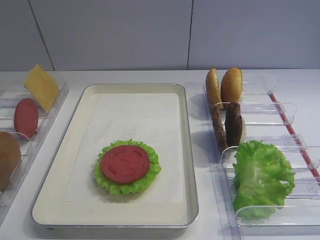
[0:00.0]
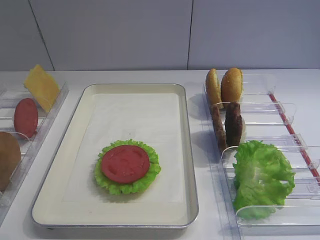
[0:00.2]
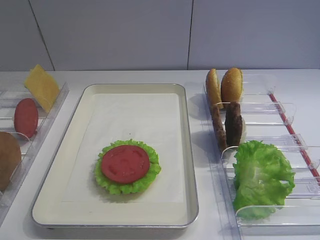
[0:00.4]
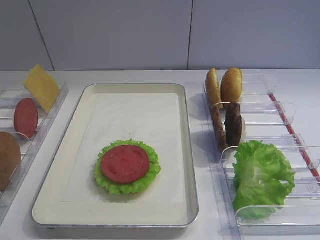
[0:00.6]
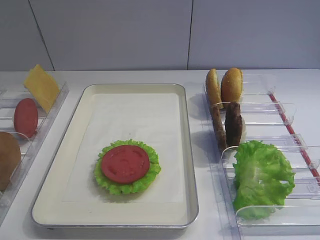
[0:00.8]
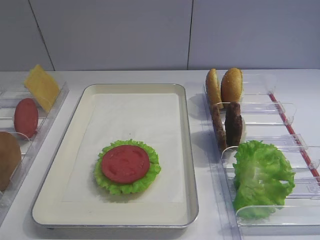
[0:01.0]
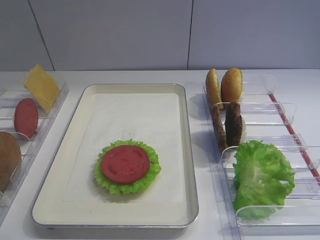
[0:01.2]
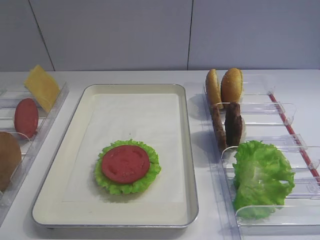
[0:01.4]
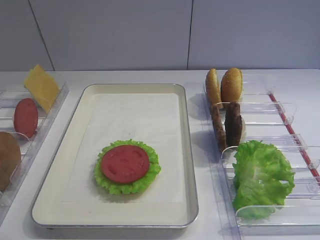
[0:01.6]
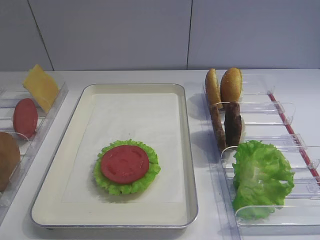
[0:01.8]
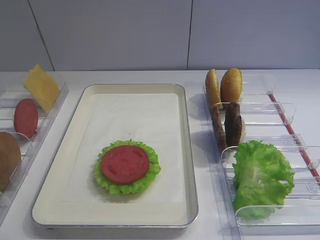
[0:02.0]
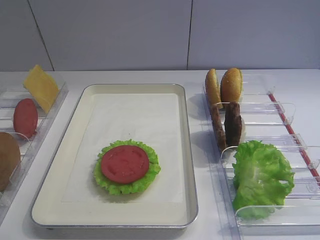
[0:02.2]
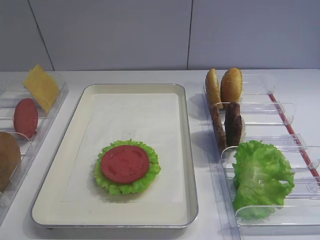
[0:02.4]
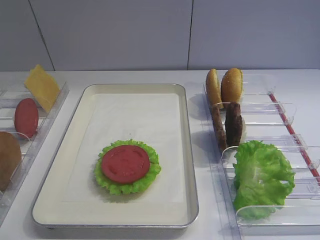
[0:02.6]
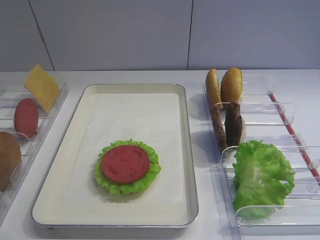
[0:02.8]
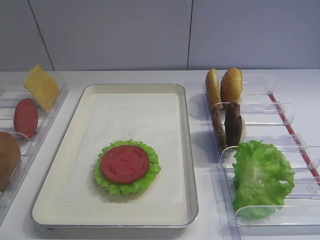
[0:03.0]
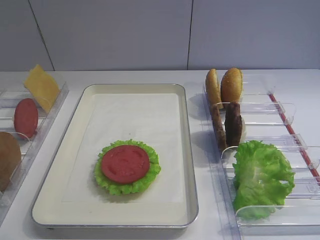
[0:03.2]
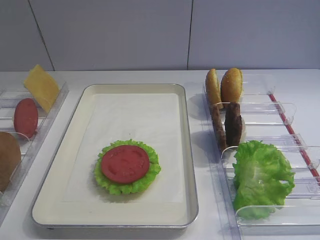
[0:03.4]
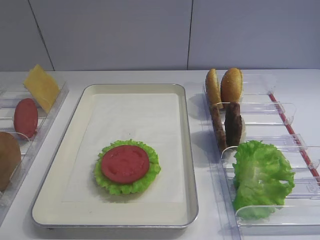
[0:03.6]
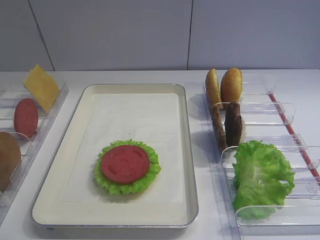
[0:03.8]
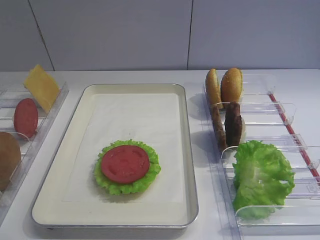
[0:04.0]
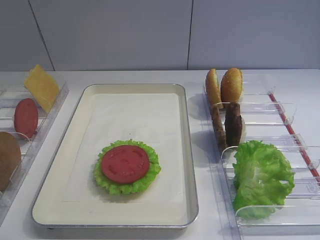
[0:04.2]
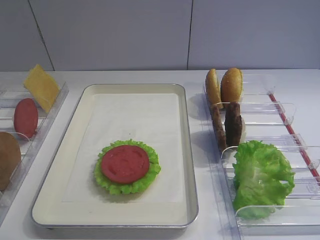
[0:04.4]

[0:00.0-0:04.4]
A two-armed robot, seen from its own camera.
0:03.0 to 0:04.4: Both grippers stay about where they are.

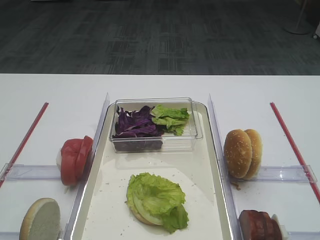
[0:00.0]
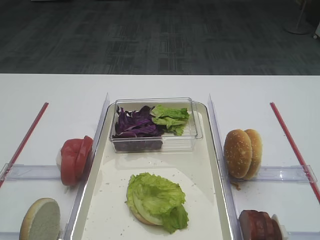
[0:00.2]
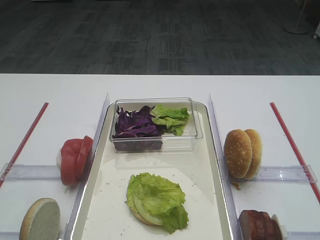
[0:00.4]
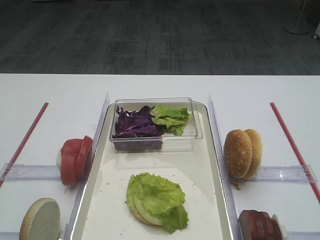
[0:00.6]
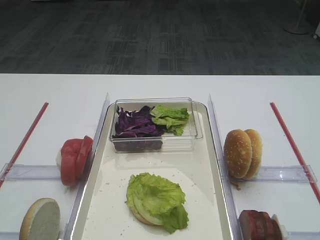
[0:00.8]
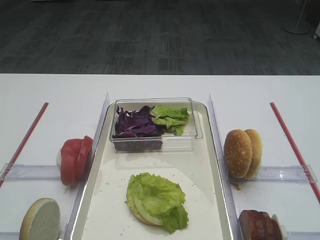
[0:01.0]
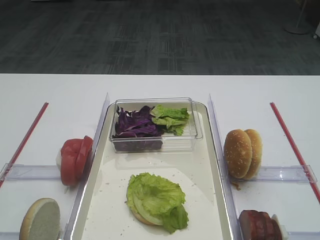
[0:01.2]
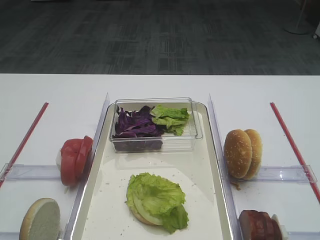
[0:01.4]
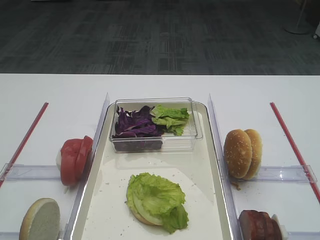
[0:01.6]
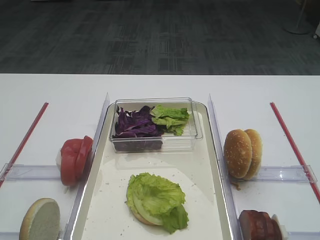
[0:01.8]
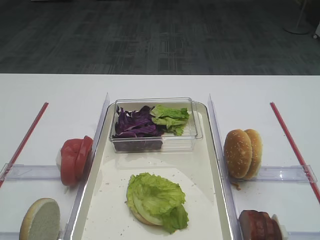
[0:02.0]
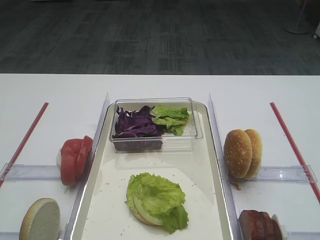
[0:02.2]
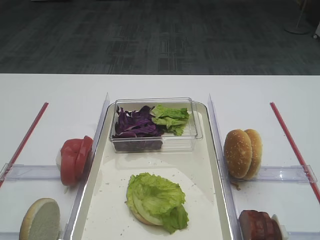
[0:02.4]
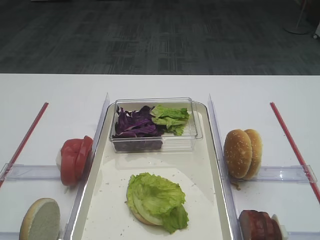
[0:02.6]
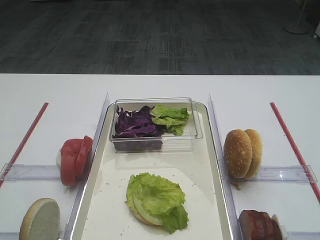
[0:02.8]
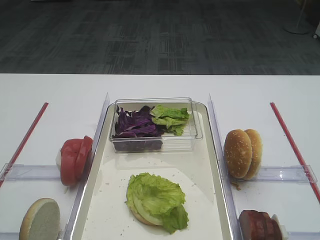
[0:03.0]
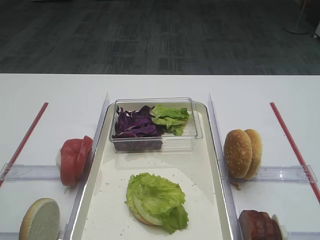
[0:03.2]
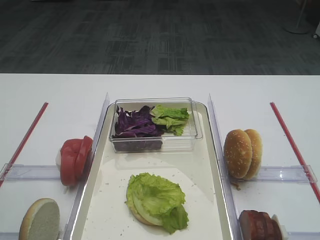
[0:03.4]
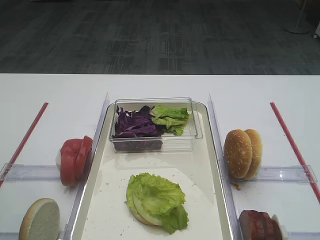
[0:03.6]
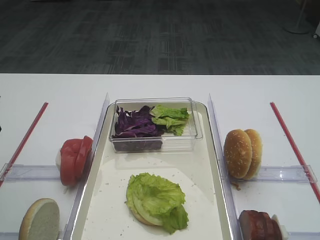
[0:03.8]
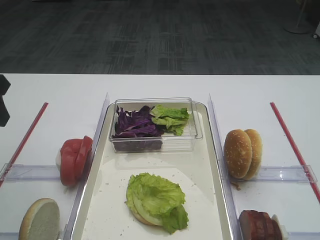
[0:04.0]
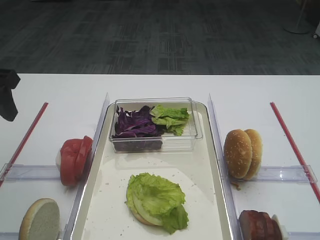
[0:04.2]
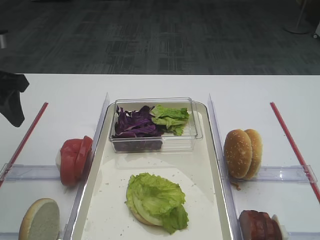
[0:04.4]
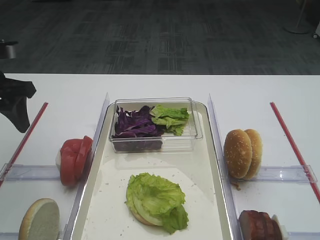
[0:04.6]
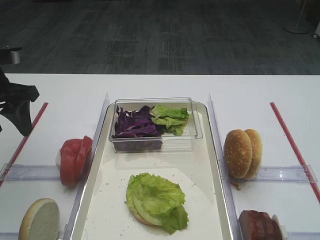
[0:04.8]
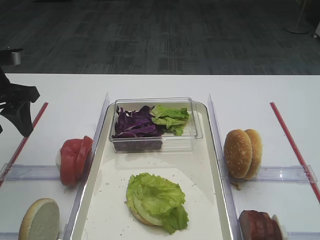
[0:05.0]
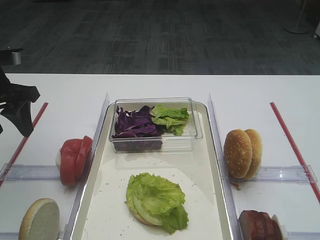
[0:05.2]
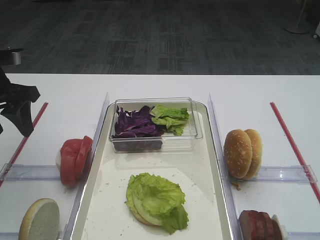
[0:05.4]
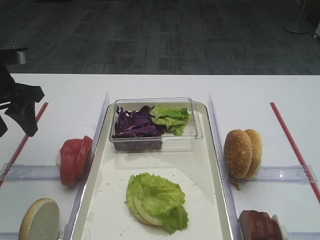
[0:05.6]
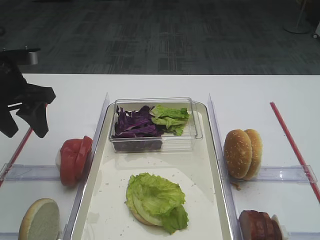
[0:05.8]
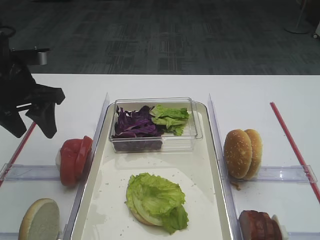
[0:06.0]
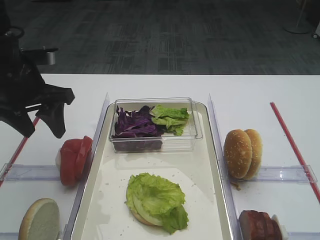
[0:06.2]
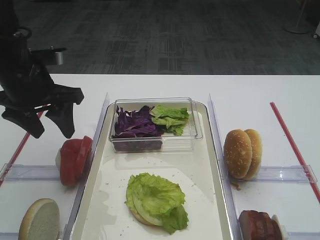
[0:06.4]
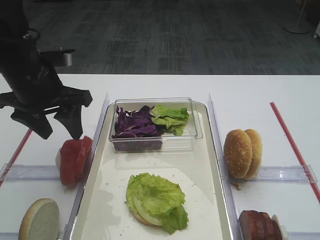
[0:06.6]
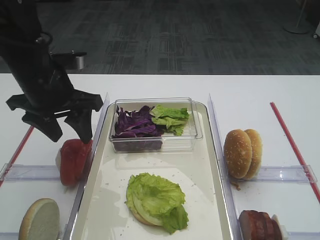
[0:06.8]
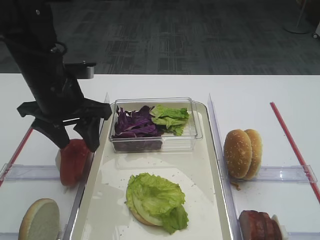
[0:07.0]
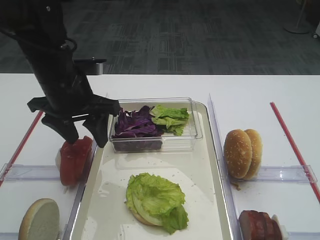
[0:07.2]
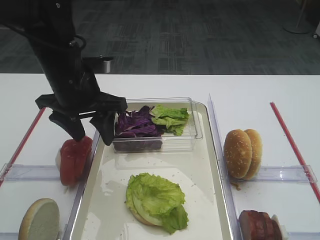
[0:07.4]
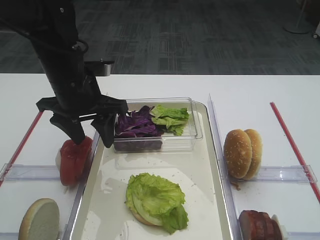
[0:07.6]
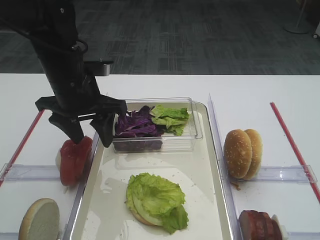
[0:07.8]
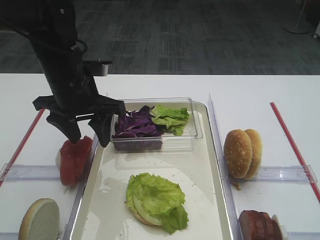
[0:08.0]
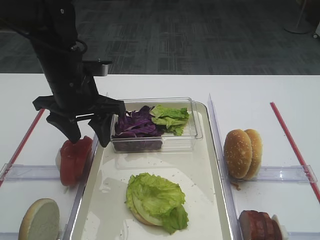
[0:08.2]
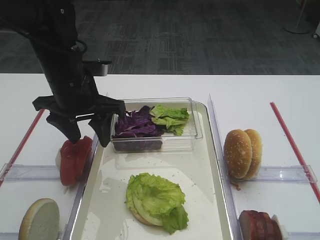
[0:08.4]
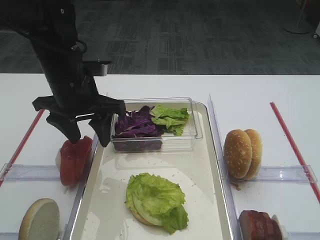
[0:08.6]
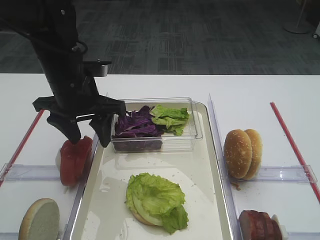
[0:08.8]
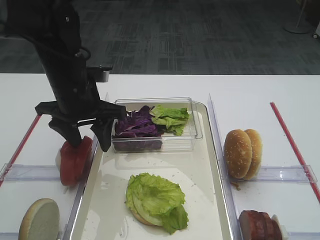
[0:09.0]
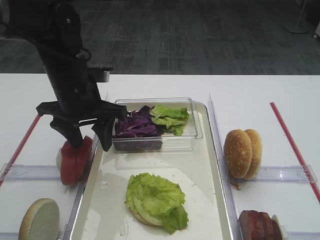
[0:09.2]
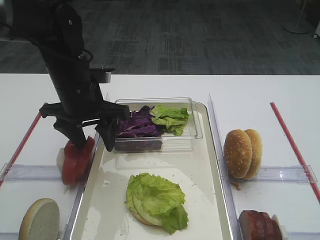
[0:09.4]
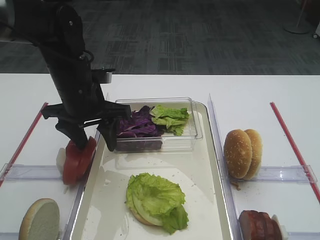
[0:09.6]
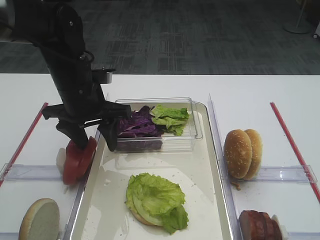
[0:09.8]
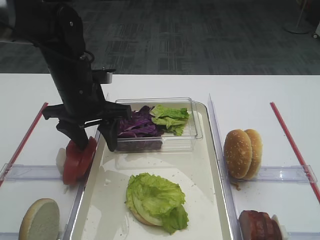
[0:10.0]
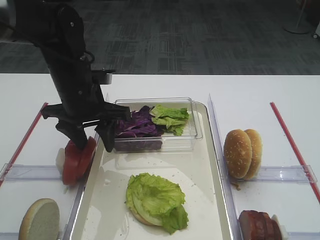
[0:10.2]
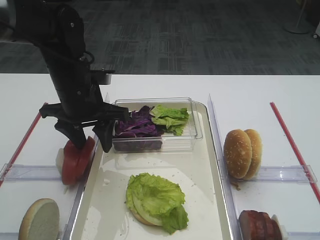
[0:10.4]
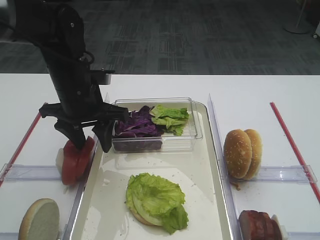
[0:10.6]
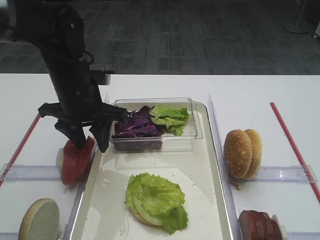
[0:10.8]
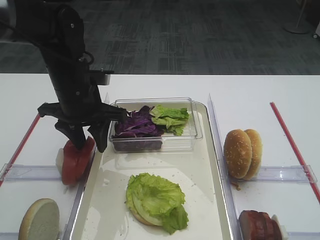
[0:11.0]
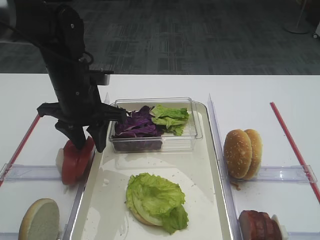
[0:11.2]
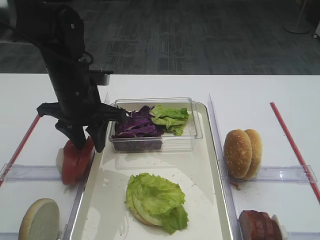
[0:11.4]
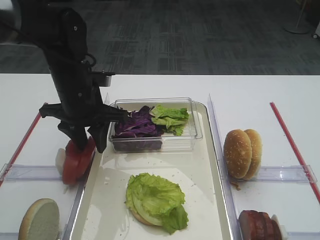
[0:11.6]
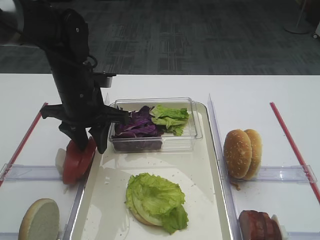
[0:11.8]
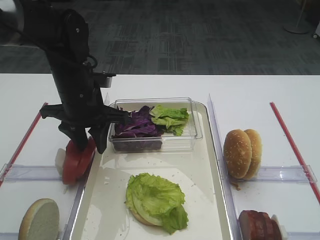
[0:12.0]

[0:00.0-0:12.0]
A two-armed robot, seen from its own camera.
0:03.0 to 0:04.4: The left gripper travels forward by some 20 cm.
0:04.4 to 0:06.0: The left gripper shifts by about 5 cm.
0:06.0 to 0:07.6: The left gripper shifts roughly 10 cm to the right.
0:07.6 to 0:09.0: Both grippers stay put.
0:09.0 to 0:10.4: Both grippers stay about where they are.
0:10.4 to 0:12.0: Neither gripper changes place.

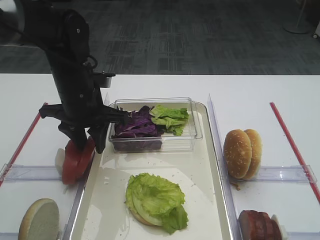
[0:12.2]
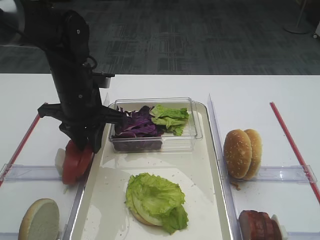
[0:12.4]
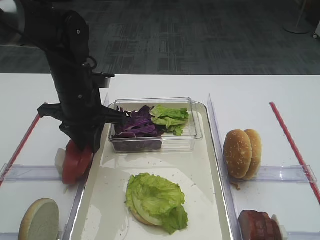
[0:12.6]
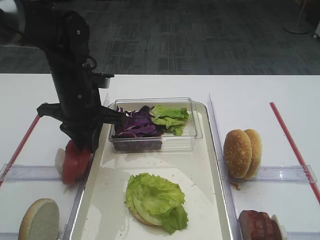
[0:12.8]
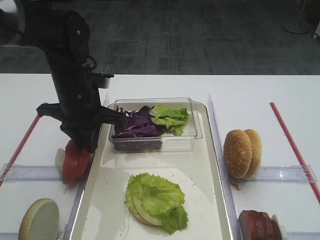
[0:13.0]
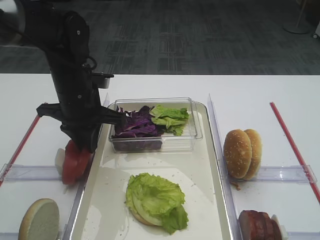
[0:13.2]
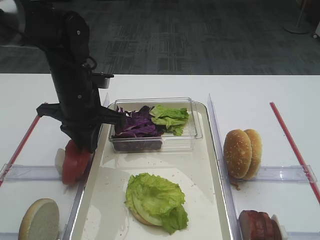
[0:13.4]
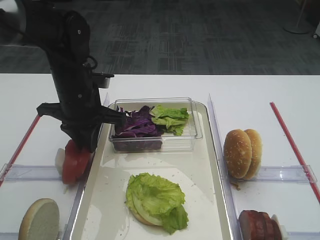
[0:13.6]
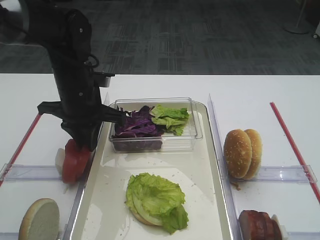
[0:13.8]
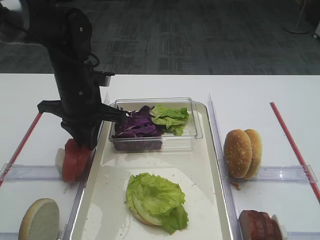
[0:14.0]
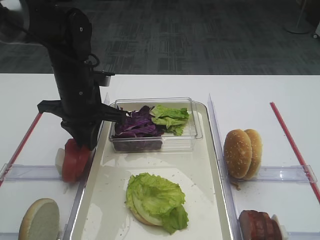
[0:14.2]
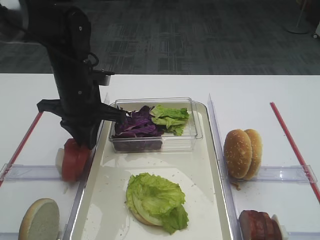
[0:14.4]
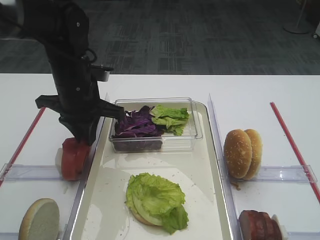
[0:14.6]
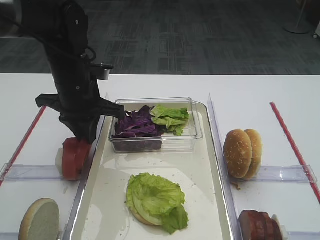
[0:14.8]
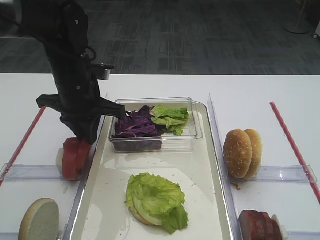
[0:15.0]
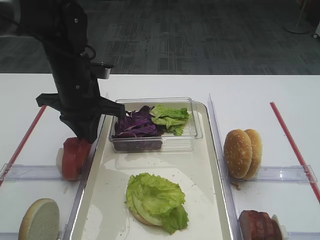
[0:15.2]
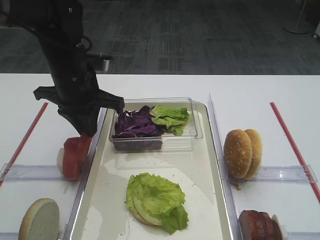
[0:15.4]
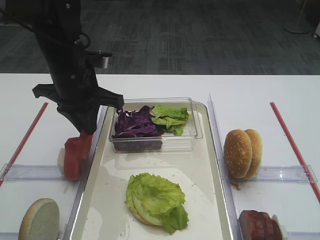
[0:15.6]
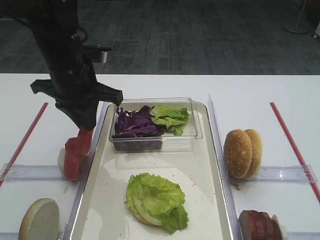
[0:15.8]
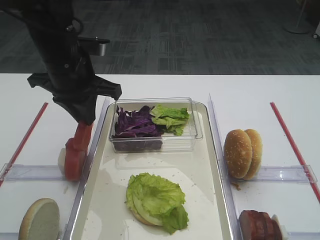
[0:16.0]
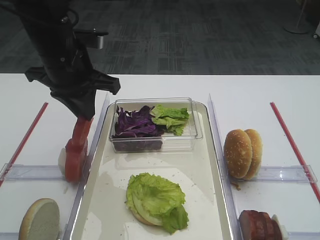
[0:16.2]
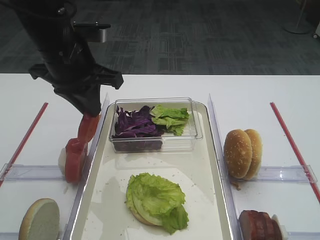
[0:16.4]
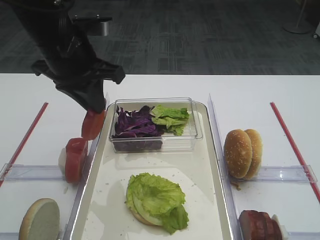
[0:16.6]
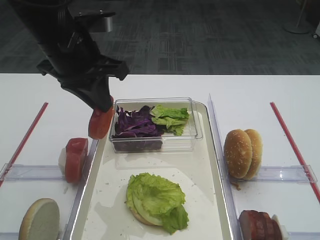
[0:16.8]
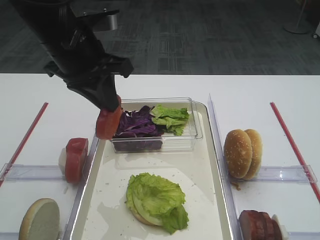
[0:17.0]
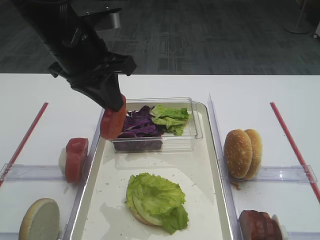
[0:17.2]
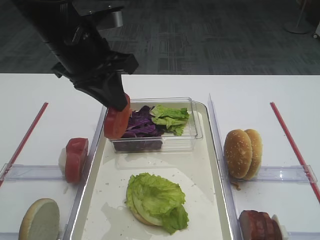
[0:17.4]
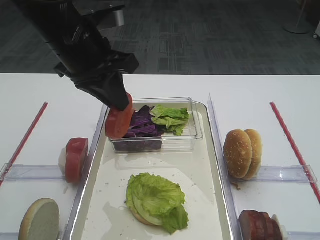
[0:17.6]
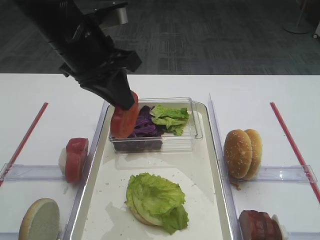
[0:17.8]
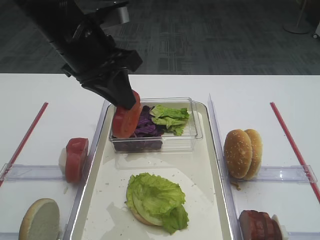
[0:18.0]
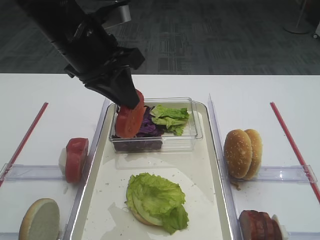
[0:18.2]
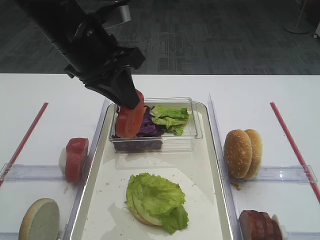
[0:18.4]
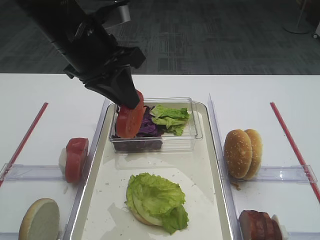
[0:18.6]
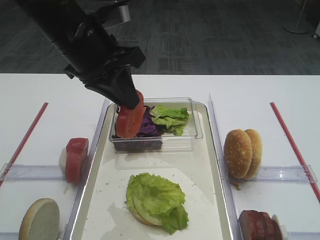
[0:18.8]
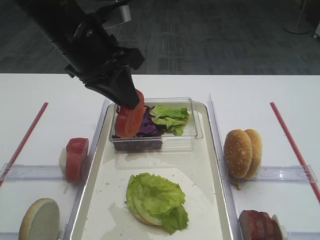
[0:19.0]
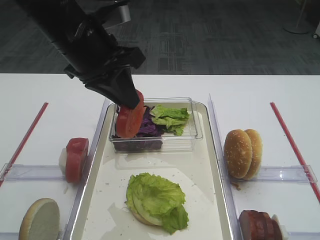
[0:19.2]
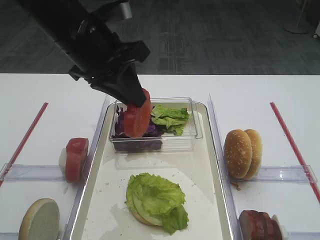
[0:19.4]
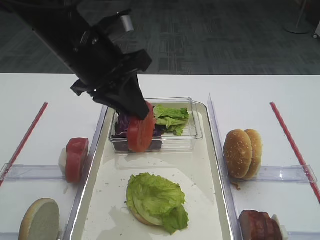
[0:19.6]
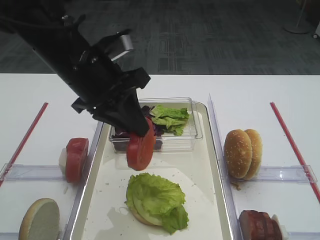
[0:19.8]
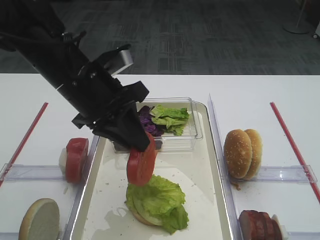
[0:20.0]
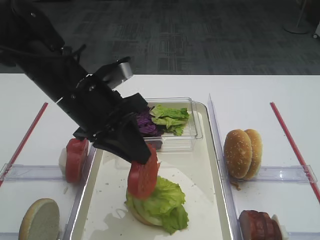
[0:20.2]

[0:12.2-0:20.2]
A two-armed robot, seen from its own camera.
Step, 0:12.2 to 0:16.4: Pick up the tomato slice with the left gripper.
0:12.2 to 0:13.8: The left gripper closes up.
0:13.8 to 0:15.4: The grippers move only a little.
0:15.4 to 0:17.0: The left gripper travels upward by approximately 5 cm.
0:17.0 to 0:18.6: The grippers make only small movements.
0:18.6 to 0:20.2: The left gripper shifts roughly 5 cm downward.
